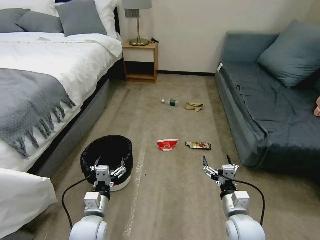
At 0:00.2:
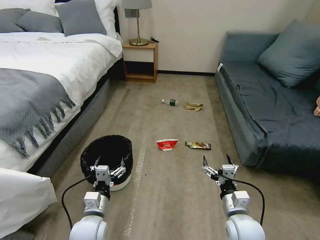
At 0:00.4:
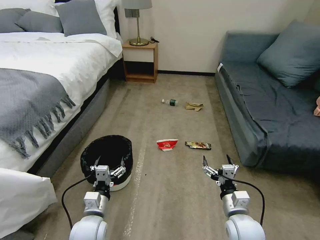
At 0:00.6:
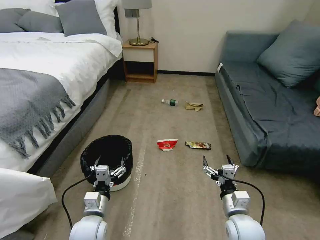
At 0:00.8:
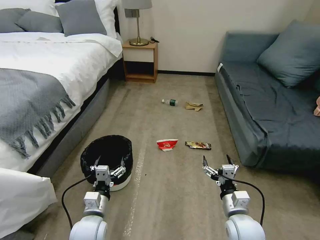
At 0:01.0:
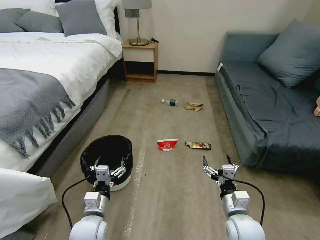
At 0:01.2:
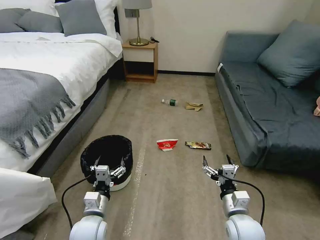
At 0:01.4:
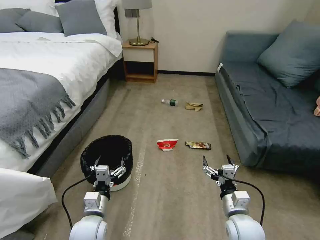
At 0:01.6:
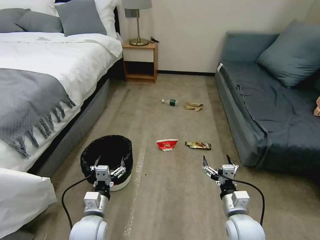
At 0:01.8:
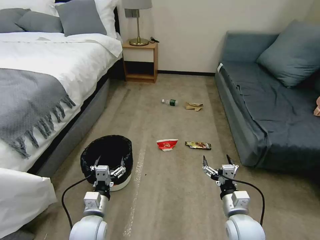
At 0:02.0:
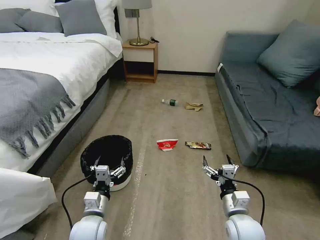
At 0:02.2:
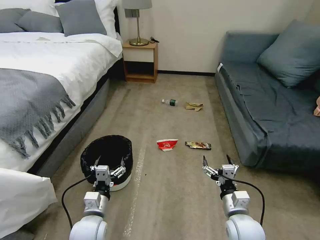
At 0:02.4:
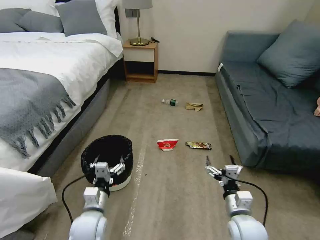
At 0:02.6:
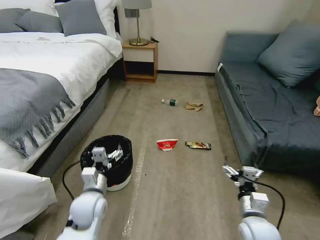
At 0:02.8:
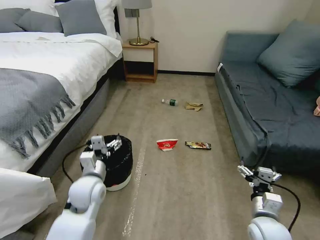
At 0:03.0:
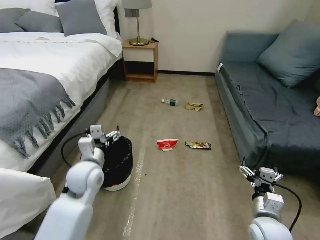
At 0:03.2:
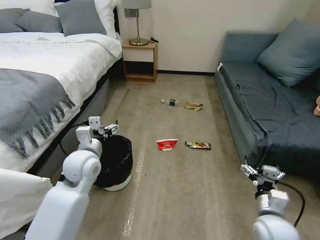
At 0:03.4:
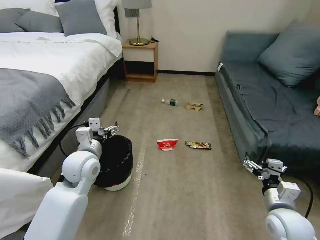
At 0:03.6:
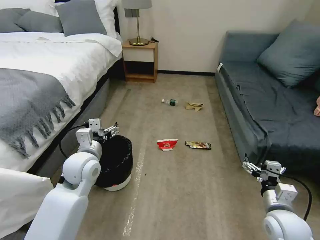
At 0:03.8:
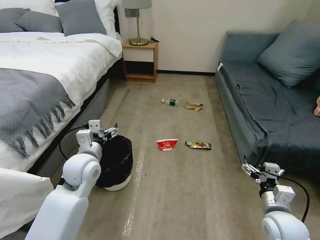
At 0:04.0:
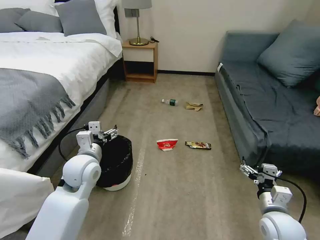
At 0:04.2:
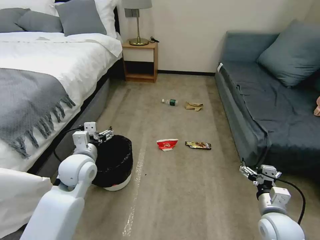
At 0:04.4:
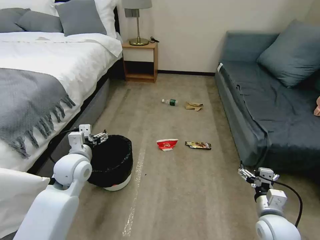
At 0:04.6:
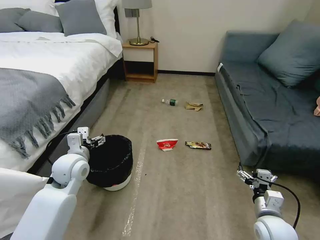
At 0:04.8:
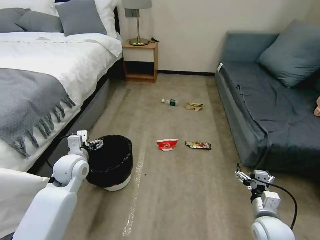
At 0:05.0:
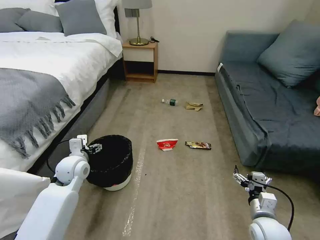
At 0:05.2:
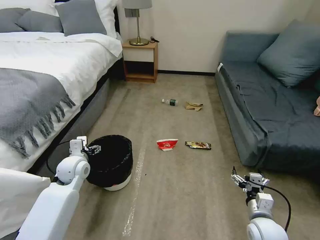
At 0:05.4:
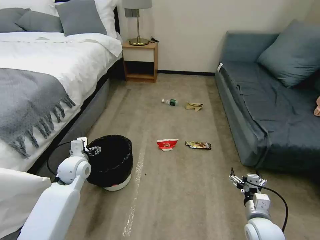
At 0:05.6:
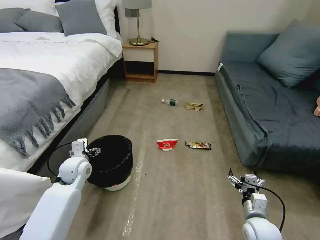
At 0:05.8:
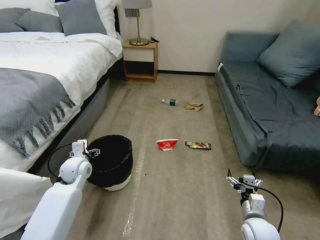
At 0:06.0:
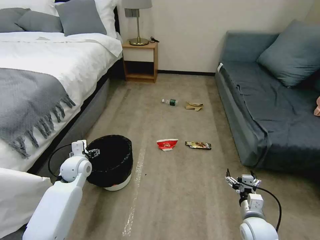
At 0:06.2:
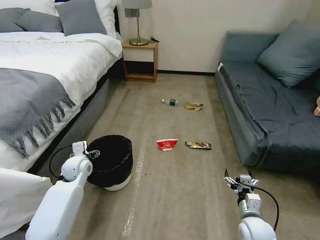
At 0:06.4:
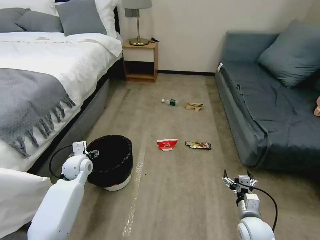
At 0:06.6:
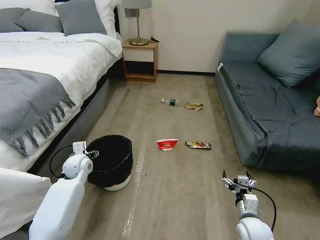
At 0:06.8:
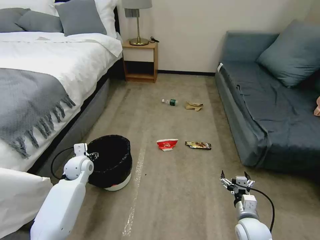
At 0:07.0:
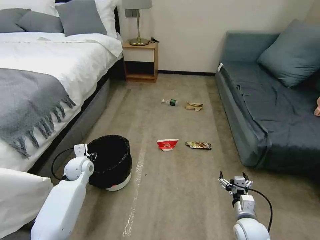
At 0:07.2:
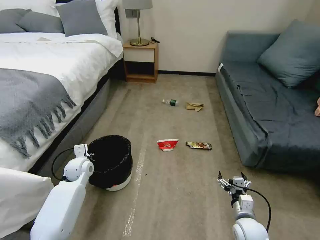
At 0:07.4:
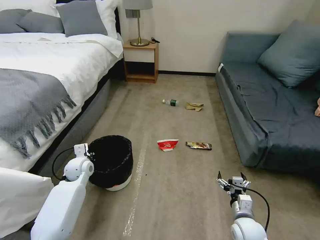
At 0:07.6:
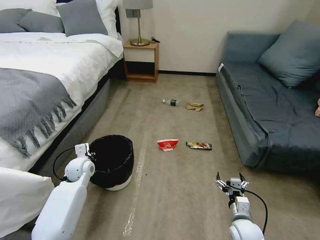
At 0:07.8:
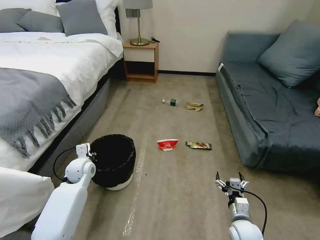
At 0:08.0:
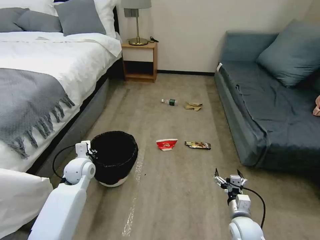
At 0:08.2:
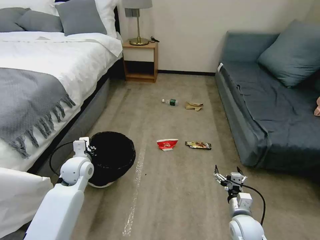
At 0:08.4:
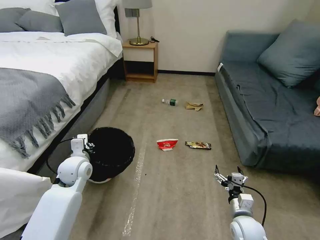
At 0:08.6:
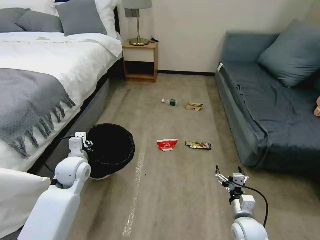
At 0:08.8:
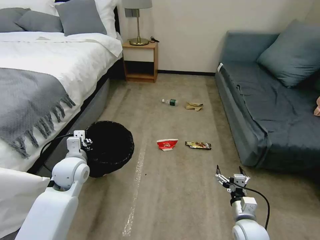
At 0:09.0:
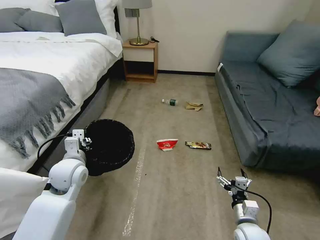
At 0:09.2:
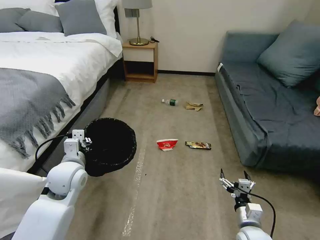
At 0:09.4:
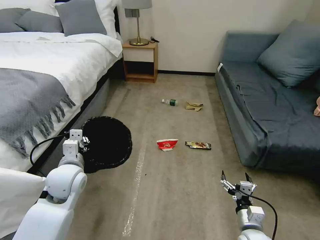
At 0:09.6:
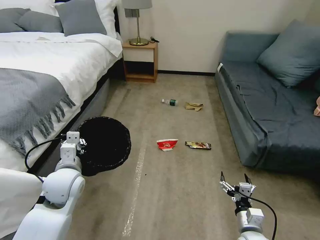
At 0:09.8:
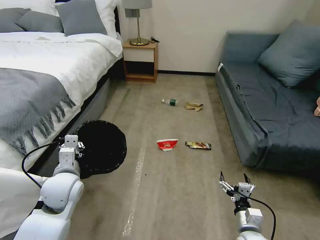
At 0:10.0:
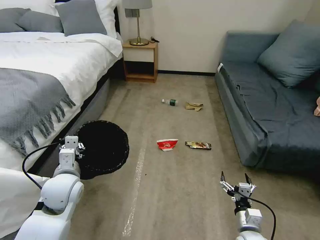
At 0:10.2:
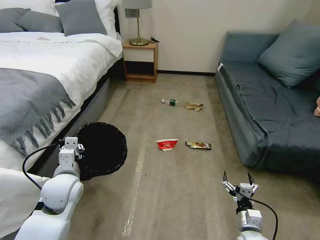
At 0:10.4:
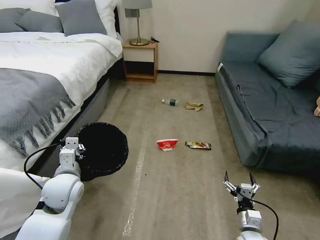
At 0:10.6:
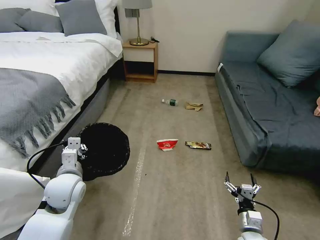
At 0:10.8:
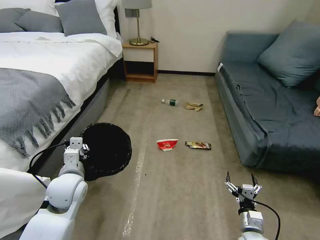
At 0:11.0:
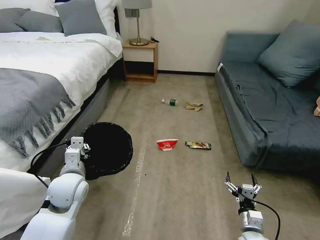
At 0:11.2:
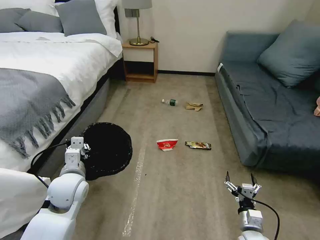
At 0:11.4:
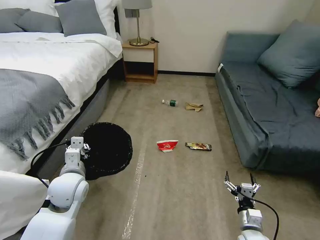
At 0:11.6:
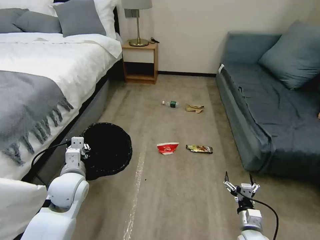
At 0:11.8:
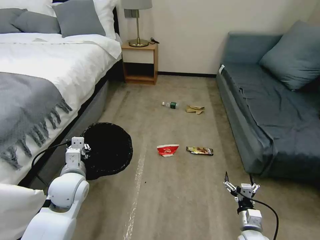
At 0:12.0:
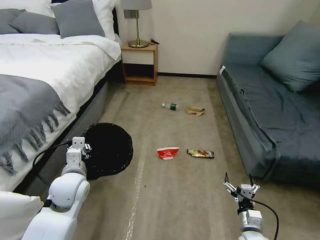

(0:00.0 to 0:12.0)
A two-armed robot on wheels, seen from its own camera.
Task of the whole recording: Pick up the trash bin, then pick up the garbage on the floor and place it into the trash bin.
0:01.6 - 0:03.0: The right gripper shifts some 5 cm to the right. Meanwhile the left gripper travels upward and forward by roughly 15 cm.
0:03.0 - 0:04.4: The grippers stay close to where they were, moving slightly.
0:04.4 - 0:06.0: The right gripper goes some 5 cm downward, while the left gripper heads downward and forward, covering roughly 10 cm.
0:06.0 - 0:07.6: The left gripper closes up.
0:07.6 - 0:09.0: The left gripper travels upward and backward by approximately 15 cm.
0:09.0 - 0:12.0: The grippers stay close to where they were, moving slightly.

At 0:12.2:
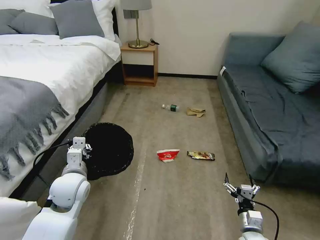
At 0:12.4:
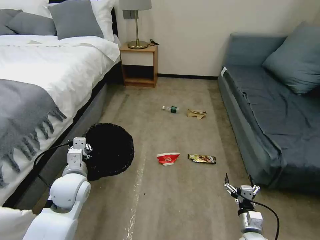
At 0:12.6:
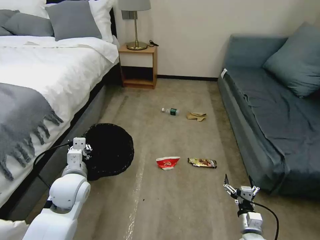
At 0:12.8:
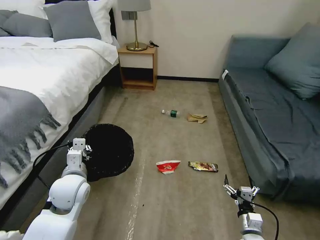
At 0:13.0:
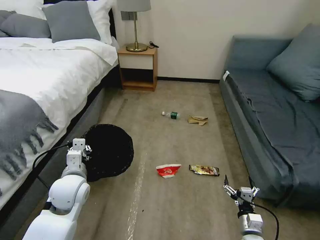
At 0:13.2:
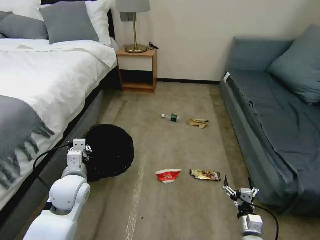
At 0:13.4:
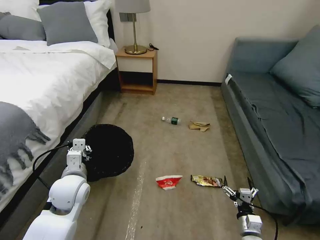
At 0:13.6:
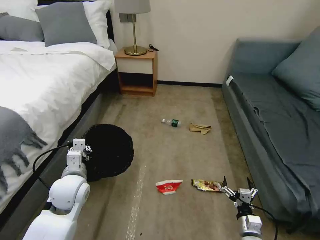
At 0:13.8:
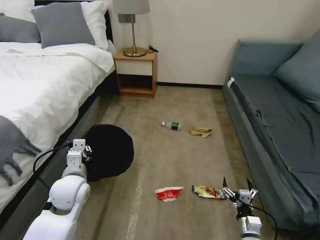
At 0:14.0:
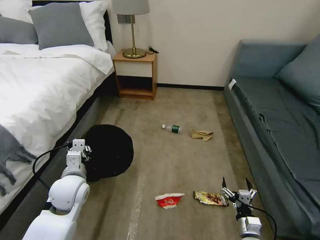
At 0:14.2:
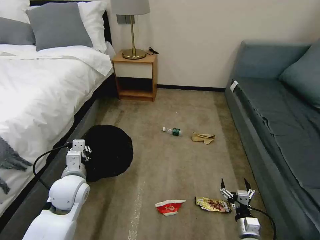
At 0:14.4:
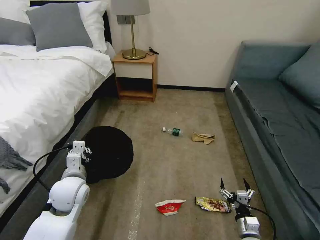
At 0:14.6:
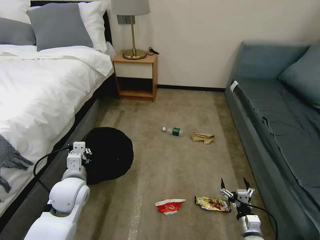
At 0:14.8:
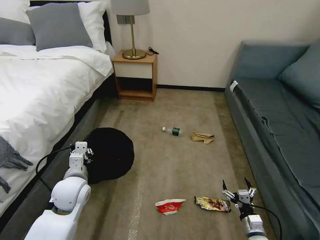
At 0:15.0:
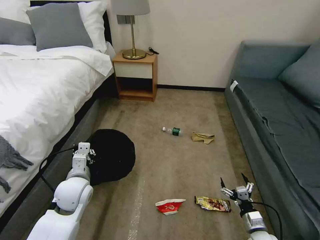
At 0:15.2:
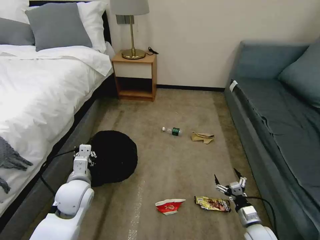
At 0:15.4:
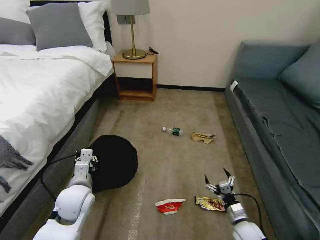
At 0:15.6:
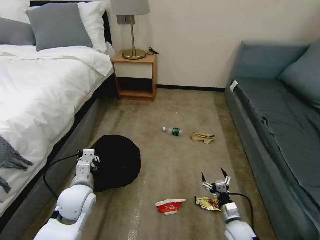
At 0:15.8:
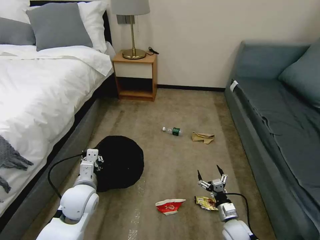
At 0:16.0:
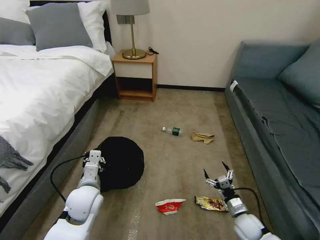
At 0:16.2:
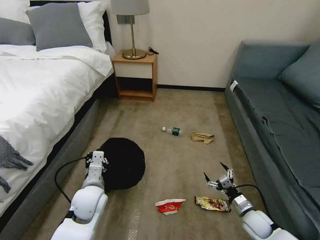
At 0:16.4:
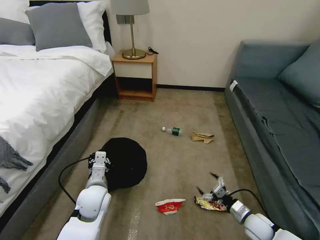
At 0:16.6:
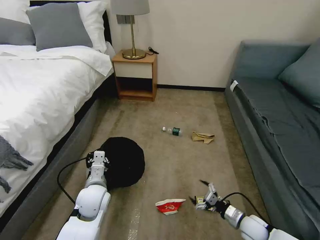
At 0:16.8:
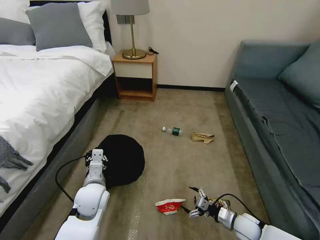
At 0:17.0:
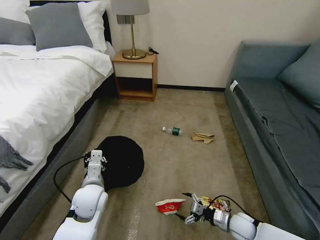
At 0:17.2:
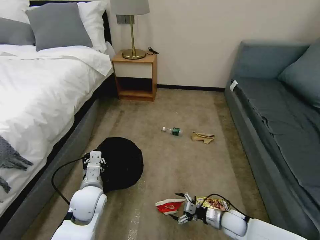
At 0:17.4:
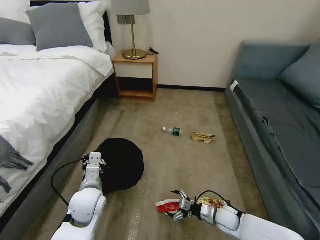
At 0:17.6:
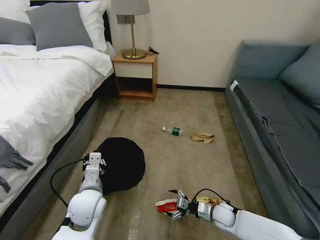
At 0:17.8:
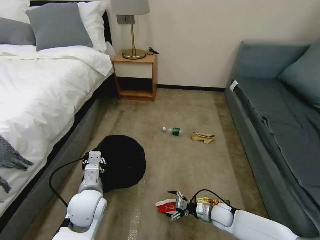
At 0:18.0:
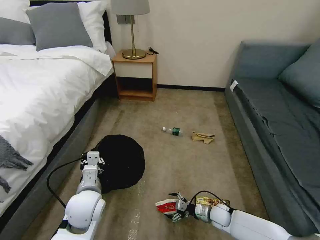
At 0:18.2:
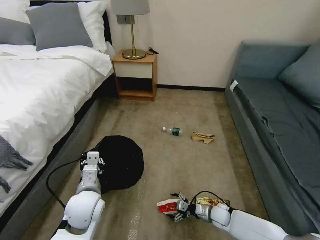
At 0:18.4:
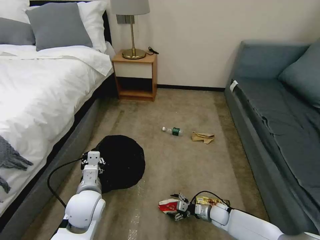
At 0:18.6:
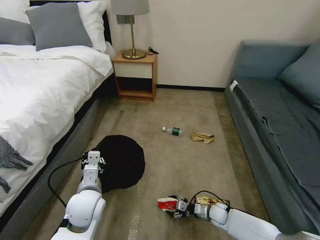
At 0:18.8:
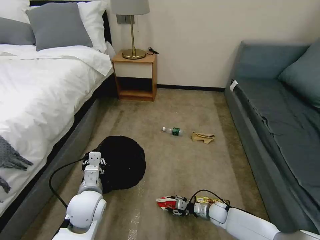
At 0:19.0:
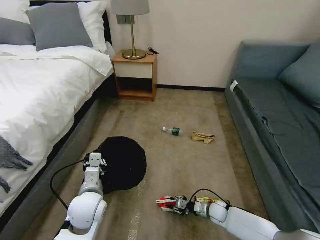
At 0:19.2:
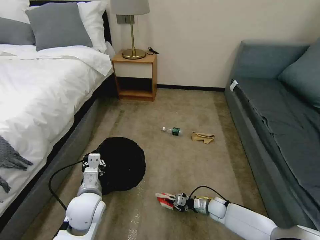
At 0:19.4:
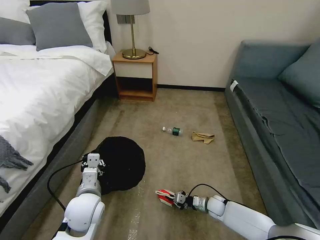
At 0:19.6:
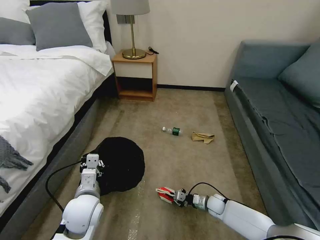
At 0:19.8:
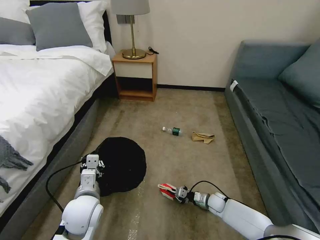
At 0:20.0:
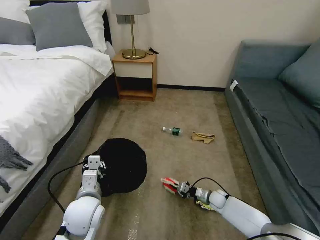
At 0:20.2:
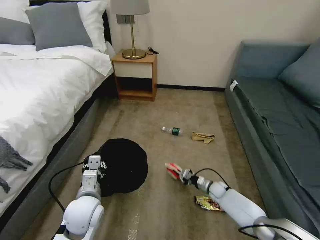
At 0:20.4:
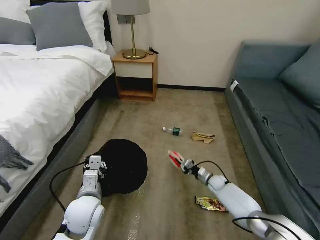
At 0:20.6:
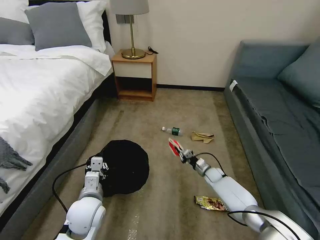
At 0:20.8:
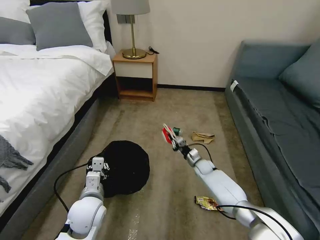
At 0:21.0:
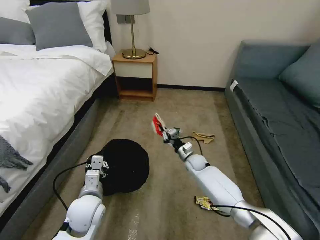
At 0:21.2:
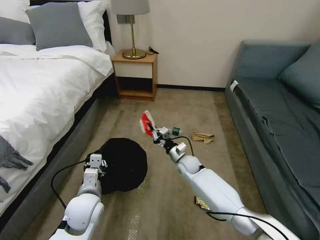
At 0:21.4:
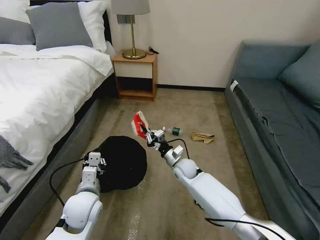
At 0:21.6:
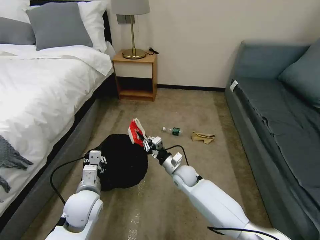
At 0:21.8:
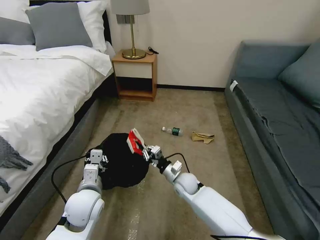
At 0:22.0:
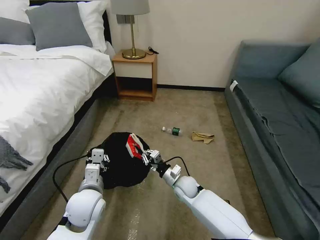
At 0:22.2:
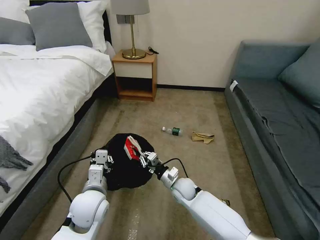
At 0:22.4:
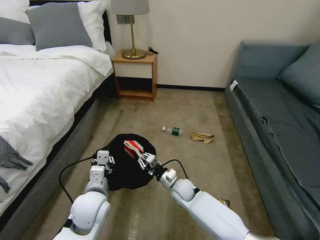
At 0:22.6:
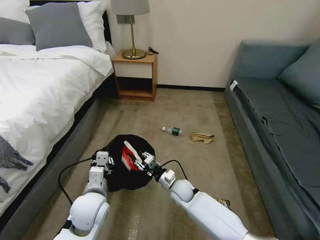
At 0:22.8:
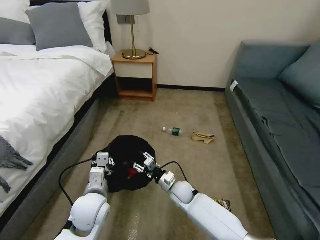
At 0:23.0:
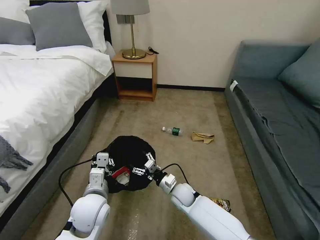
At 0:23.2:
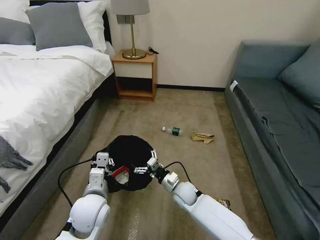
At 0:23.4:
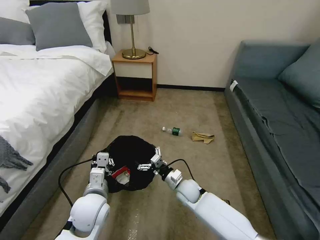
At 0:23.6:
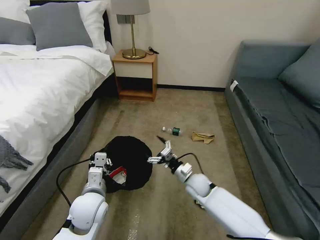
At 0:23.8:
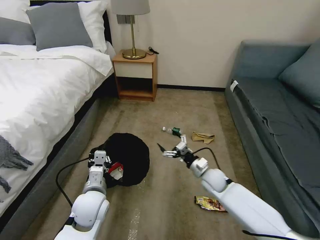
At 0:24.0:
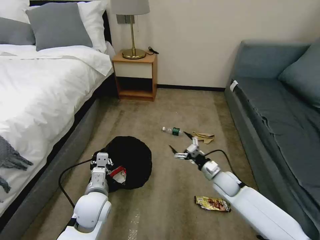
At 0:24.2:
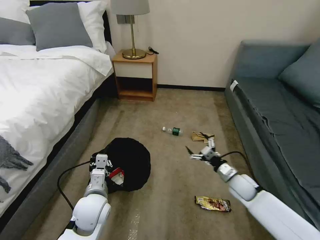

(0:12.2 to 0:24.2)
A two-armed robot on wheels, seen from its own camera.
Task of the whole recording: Pick up the trash bin, then pick up the garbage on the floor and place it into the trash bin.
0:13.8 - 0:15.2: The right gripper moves some 5 cm.
0:15.2 - 0:16.6: The right gripper moves some 5 cm to the left and comes back; the left gripper ends up some 5 cm from where it was.
0:16.6 - 0:18.2: The right gripper moves to the left, downward and forward, some 15 cm. The left gripper ends up roughly 5 cm from where it was.
0:18.2 - 0:19.8: The right gripper moves forward, approximately 5 cm, and closes up.
0:19.8 - 0:21.2: The right gripper travels upward, to the left and forward by roughly 25 cm.
0:21.2 - 0:22.6: The right gripper travels backward by roughly 10 cm.
0:22.6 - 0:24.2: The right gripper goes approximately 25 cm to the right, and opens up.
